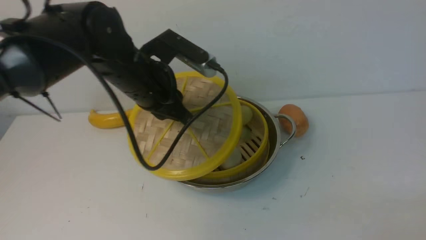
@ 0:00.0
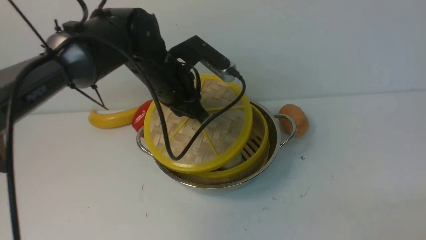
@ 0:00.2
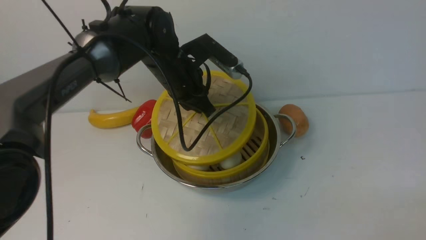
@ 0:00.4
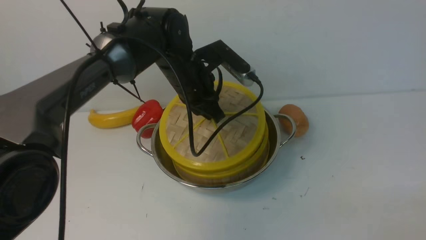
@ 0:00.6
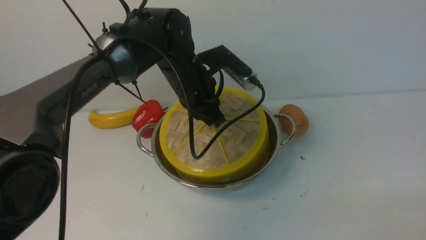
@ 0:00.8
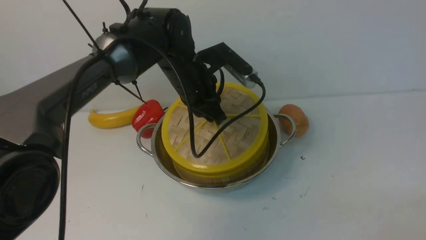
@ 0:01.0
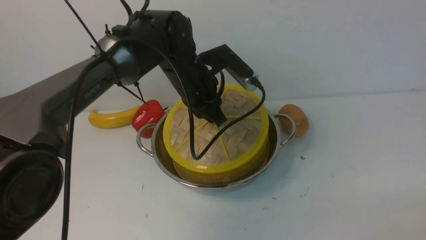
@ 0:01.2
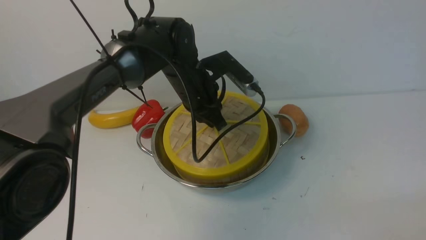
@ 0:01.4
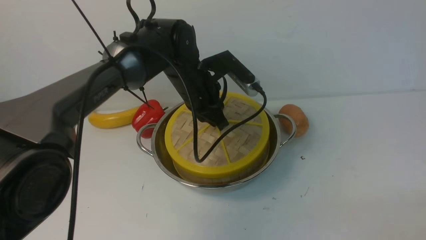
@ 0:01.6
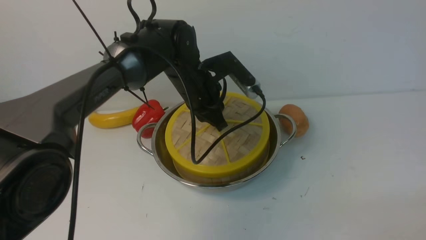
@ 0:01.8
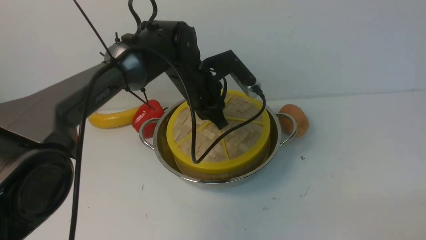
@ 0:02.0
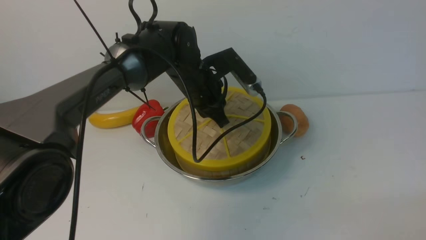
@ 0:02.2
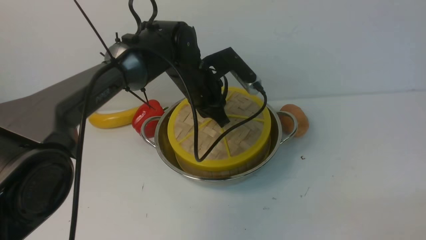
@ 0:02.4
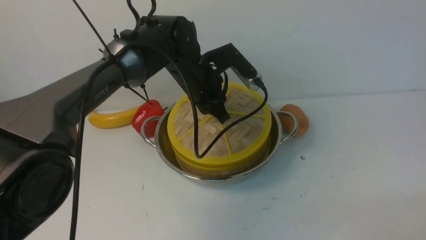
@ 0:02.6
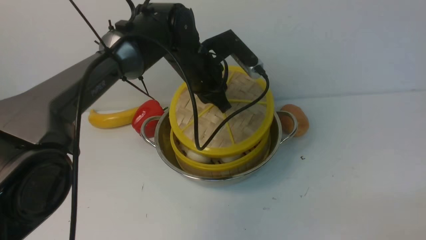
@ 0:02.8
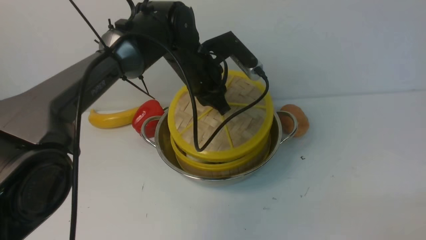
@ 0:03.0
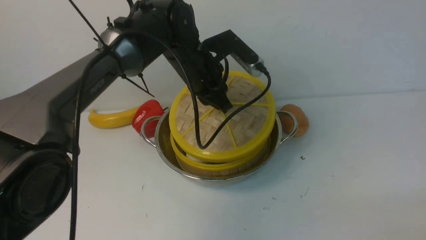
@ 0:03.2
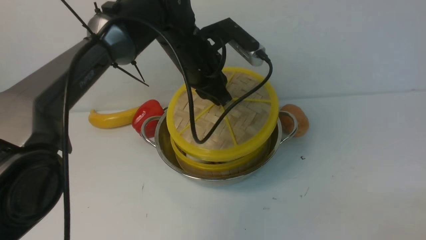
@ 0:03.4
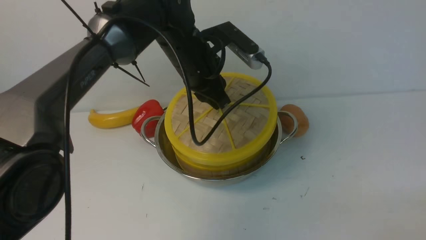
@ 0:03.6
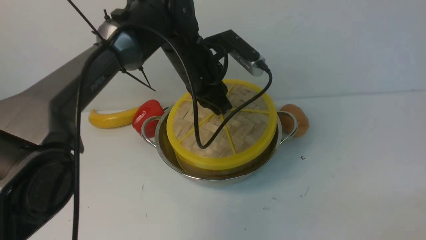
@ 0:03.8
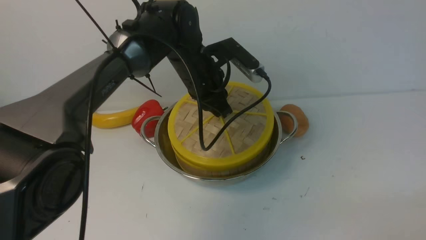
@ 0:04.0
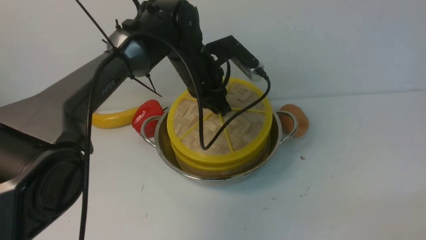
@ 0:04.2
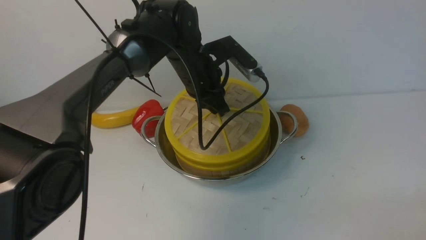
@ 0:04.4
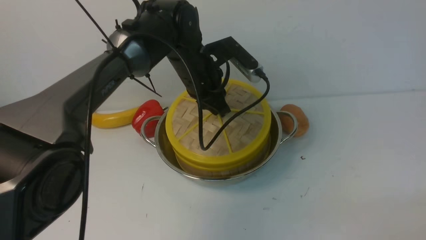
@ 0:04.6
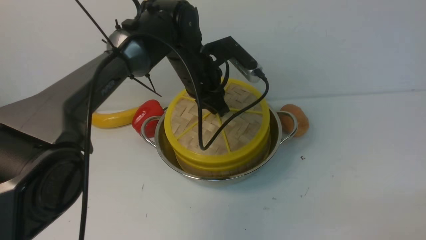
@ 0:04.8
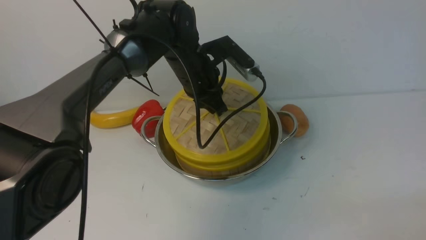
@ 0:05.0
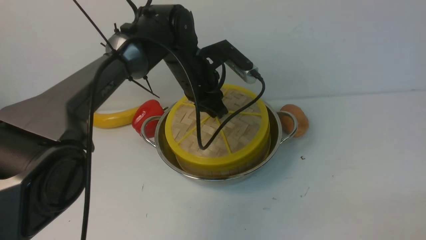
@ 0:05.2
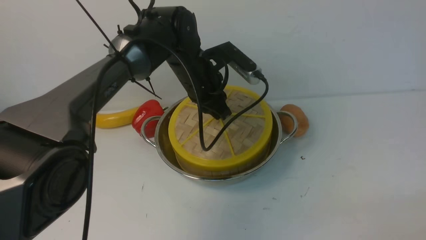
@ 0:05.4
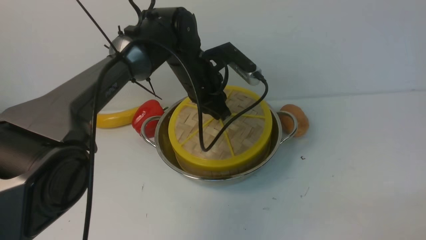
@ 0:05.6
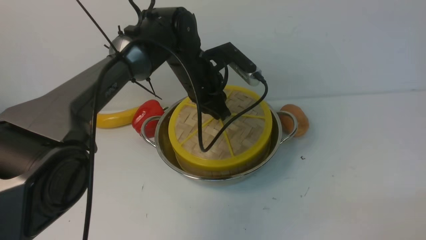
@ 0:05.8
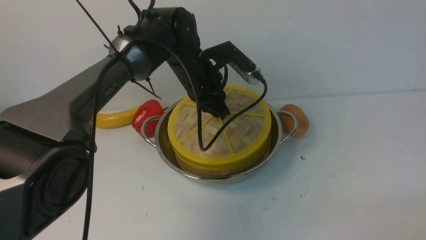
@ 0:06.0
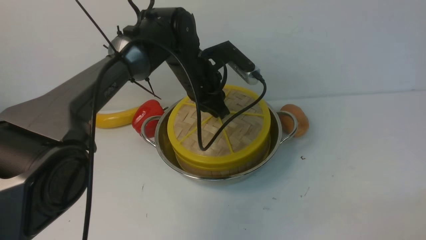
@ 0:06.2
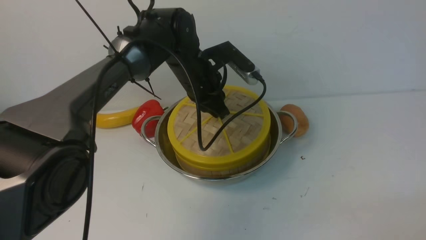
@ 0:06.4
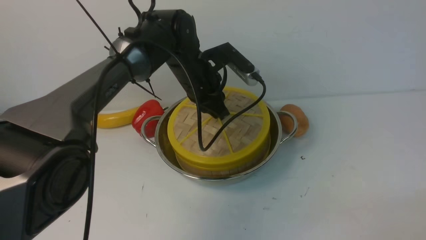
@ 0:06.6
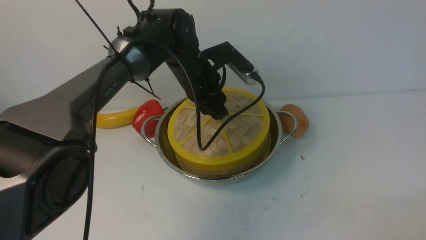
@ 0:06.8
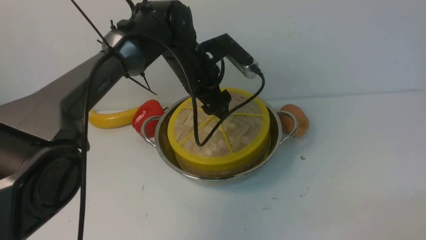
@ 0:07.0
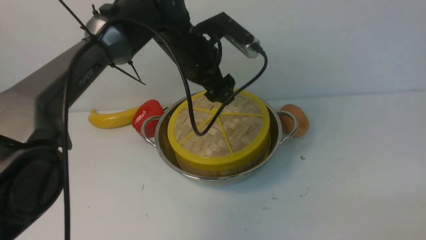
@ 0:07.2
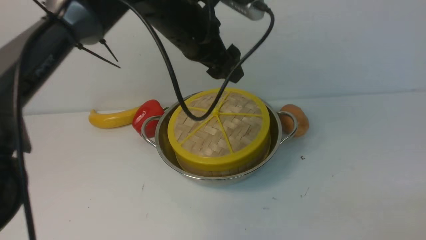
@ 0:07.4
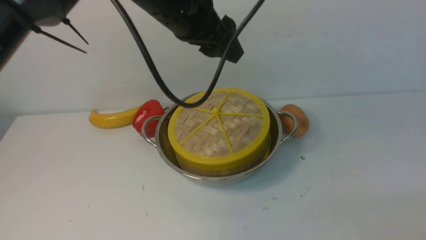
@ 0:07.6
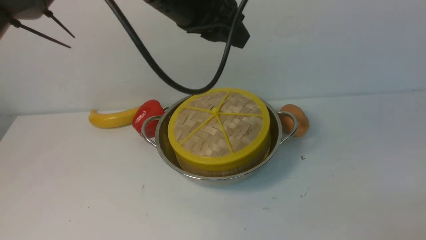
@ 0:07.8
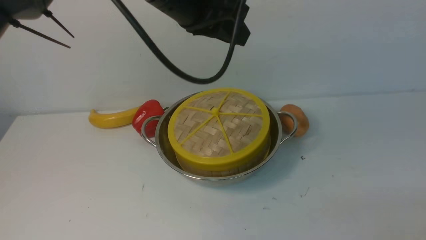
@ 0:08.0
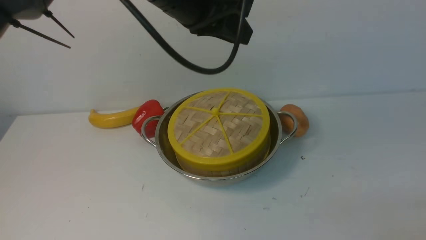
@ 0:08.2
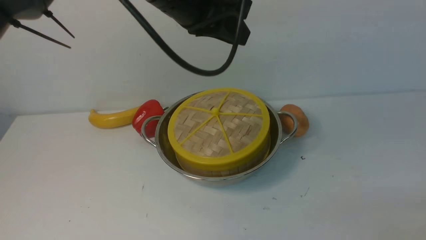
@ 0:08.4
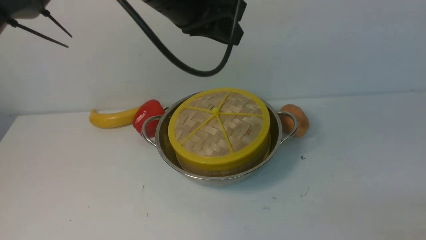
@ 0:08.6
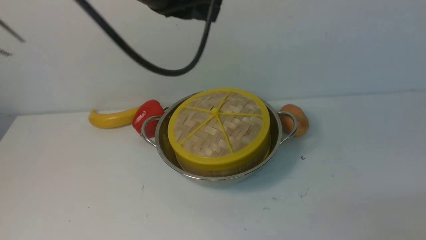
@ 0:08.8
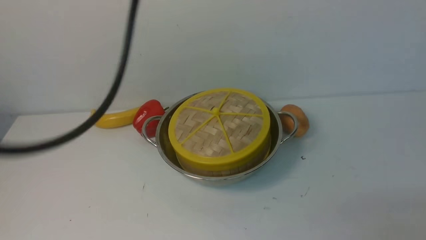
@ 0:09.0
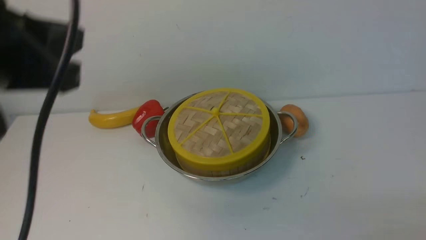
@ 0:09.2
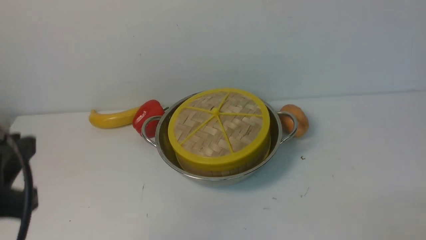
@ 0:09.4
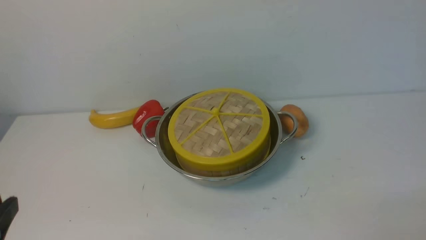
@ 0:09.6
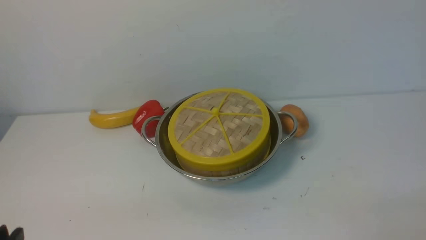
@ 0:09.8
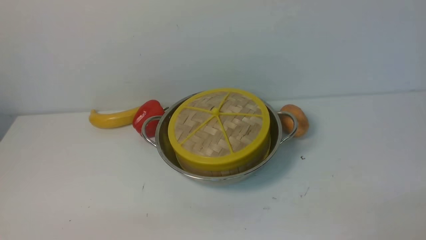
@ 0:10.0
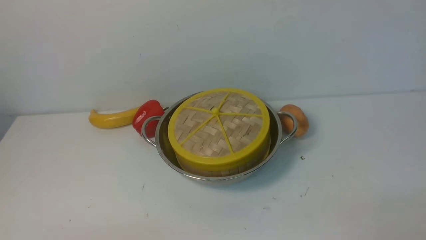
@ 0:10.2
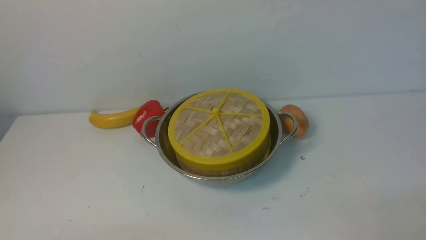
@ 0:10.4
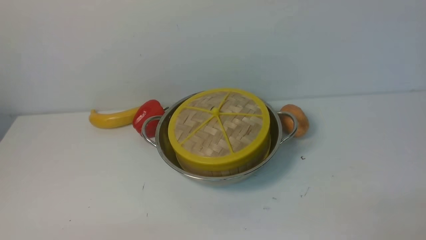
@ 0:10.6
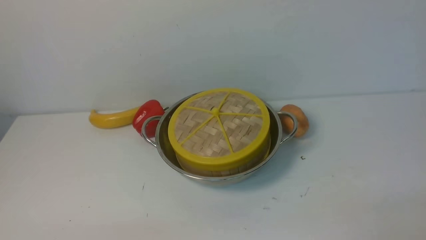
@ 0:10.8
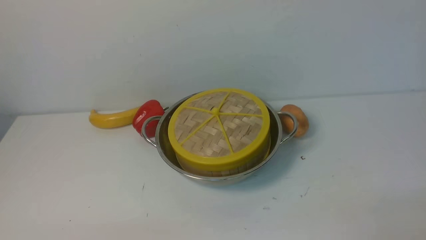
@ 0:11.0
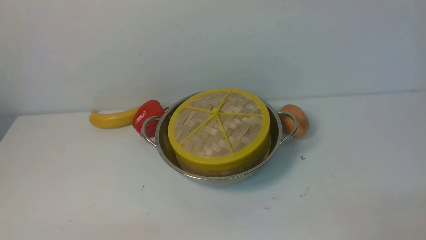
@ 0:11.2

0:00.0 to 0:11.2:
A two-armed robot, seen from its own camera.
Task of the whole recording: place the steamer in the pot on the white table, and put the lid on the steamer.
Step, 0:00.0 to 0:07.6: use the left arm to place the steamer lid on the steamer.
0:00.0 to 0:01.6: The left gripper heads to the right, forward and downward, covering some 10 cm.
0:01.6 to 0:06.4: The grippers move only a little.
0:06.4 to 0:08.0: The left gripper goes roughly 20 cm upward and backward, and opens and closes again.
0:08.0 to 0:09.6: The left gripper moves backward, to the left and downward, approximately 35 cm.

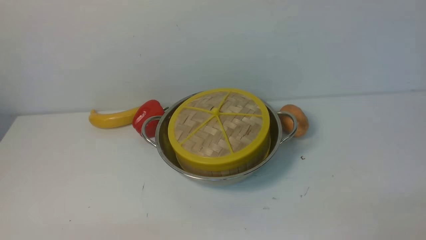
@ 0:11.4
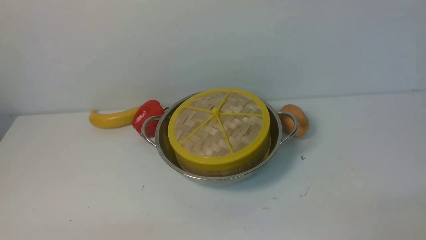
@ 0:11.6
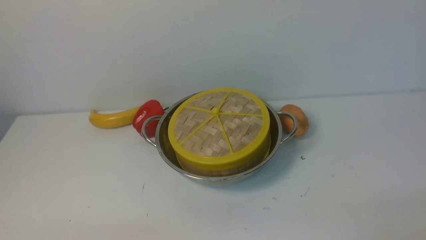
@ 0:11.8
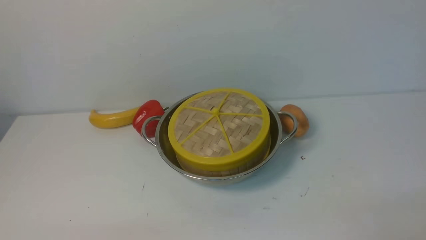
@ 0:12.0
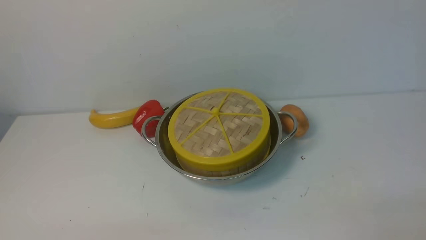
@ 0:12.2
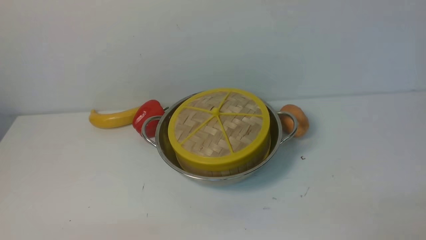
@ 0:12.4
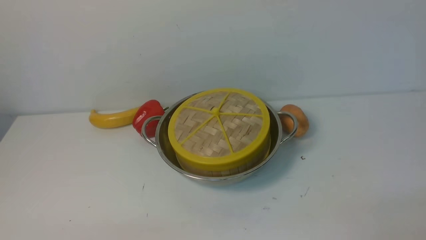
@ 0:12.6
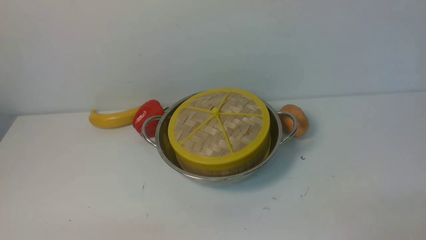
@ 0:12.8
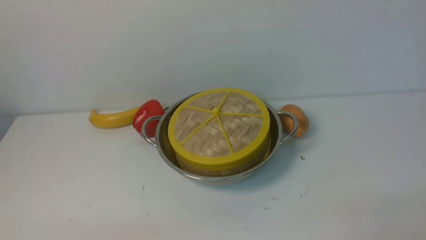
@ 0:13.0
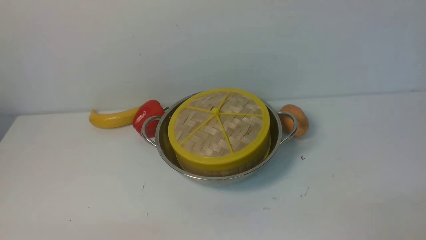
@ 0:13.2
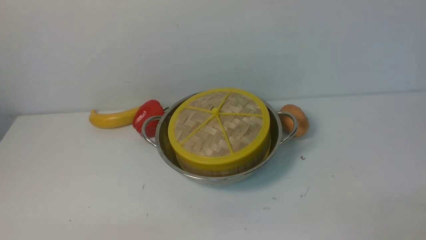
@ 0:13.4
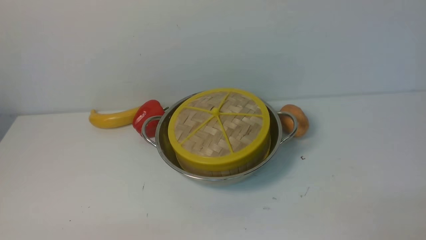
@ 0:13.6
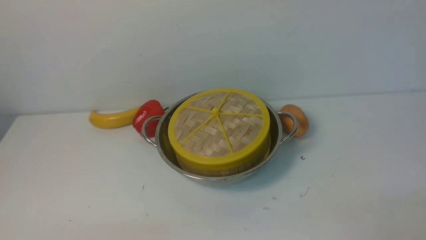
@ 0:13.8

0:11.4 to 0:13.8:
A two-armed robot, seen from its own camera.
Task of the whole recording: place the steamer in the pot on the white table, and put the lid on the steamer.
0:11.4 to 0:13.8: Both grippers stay about where they are.
